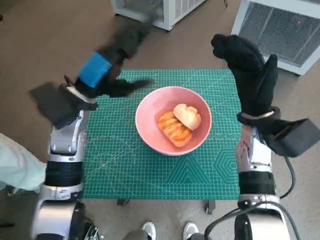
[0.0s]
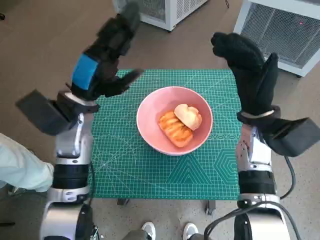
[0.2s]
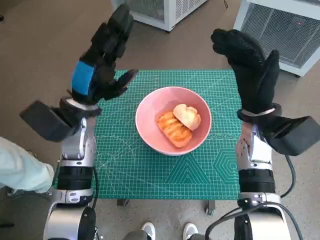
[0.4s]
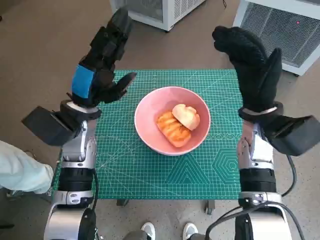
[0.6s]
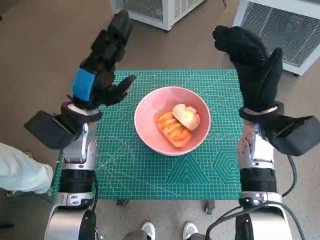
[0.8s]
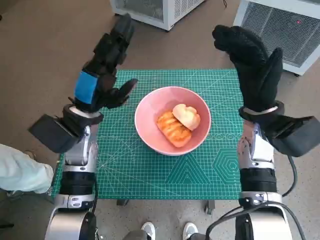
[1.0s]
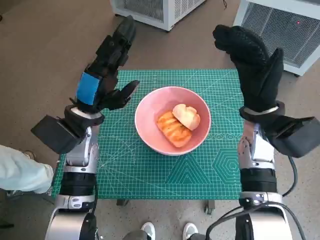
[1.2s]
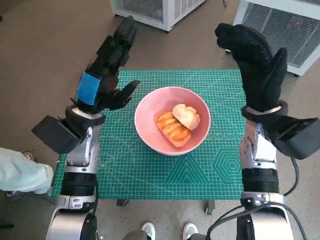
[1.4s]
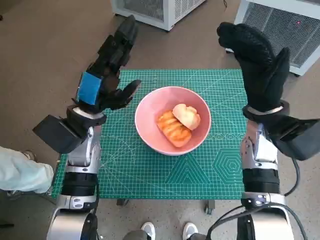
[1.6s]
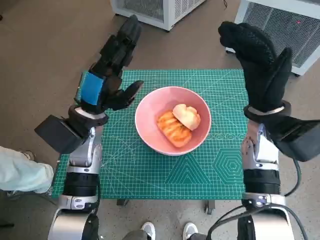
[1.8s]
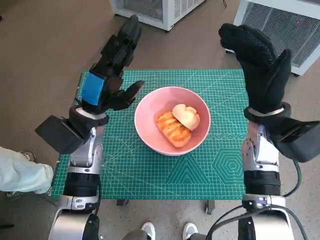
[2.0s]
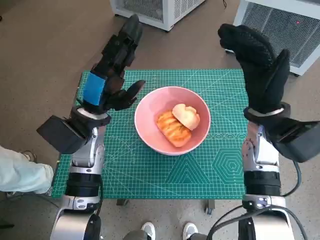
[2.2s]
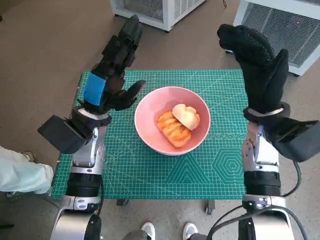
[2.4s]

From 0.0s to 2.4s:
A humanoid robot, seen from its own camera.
Task of the whole recording: Push the bowl into the center of the table and put the bread into the bowl.
From 1.2s to 2.4s: Neither hand changes place.

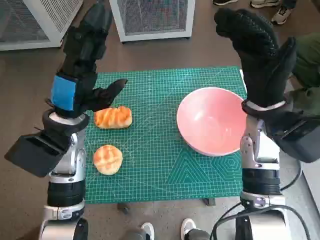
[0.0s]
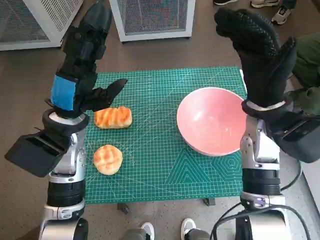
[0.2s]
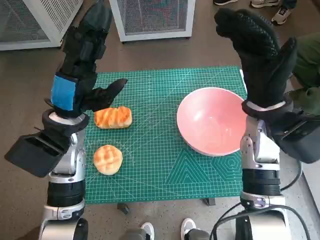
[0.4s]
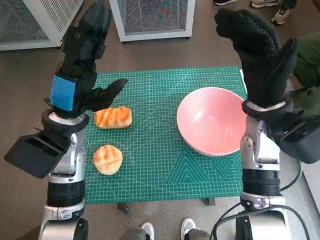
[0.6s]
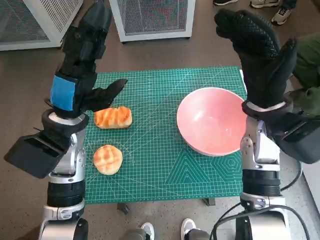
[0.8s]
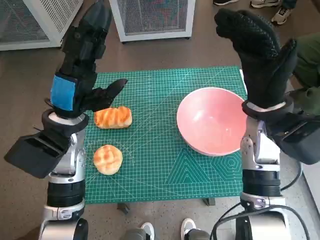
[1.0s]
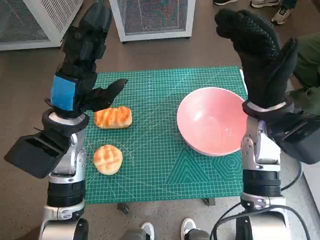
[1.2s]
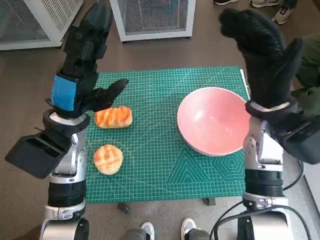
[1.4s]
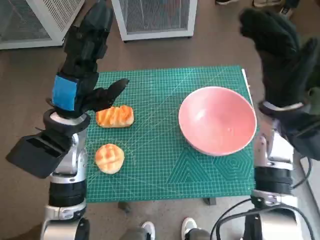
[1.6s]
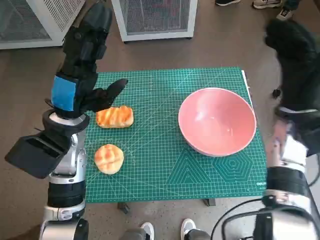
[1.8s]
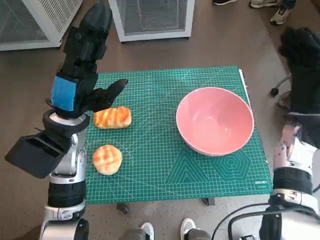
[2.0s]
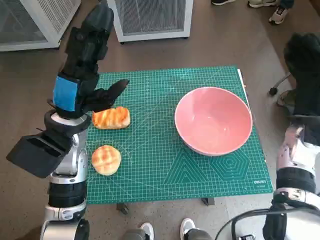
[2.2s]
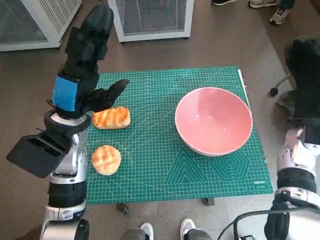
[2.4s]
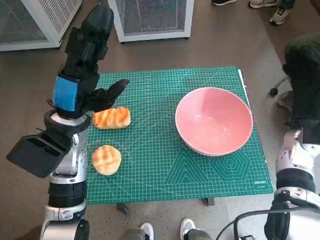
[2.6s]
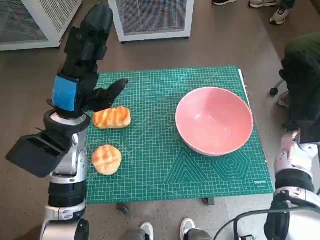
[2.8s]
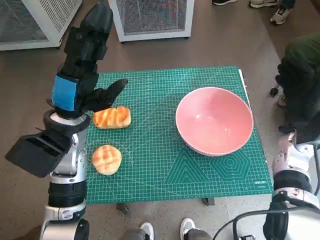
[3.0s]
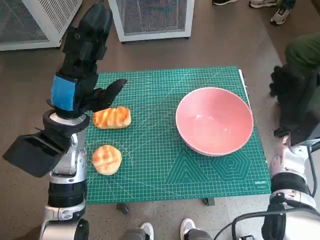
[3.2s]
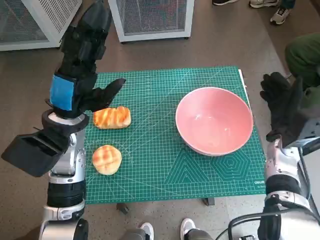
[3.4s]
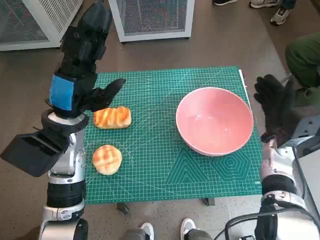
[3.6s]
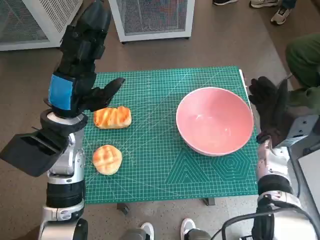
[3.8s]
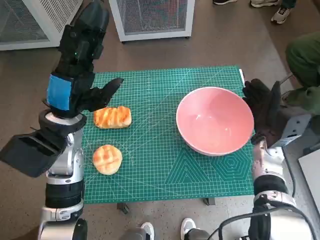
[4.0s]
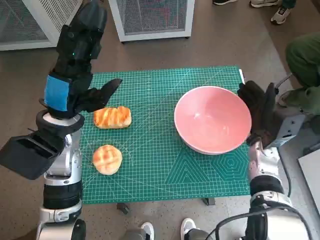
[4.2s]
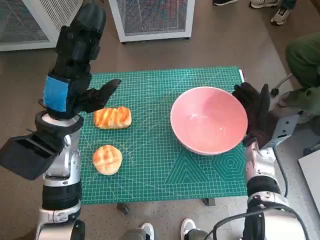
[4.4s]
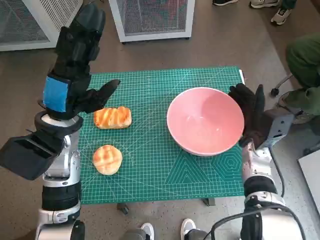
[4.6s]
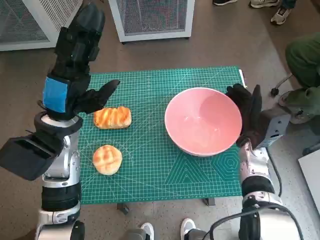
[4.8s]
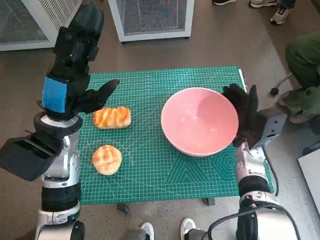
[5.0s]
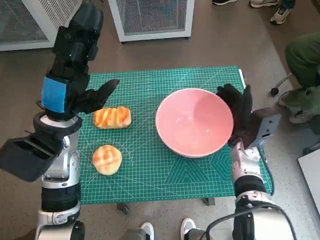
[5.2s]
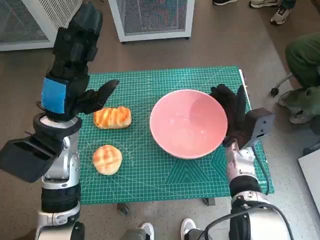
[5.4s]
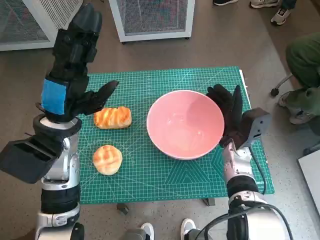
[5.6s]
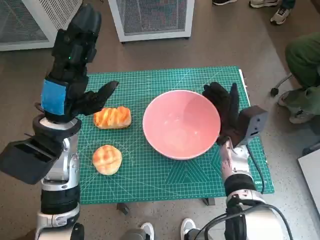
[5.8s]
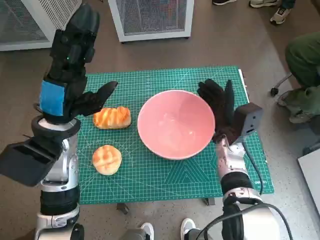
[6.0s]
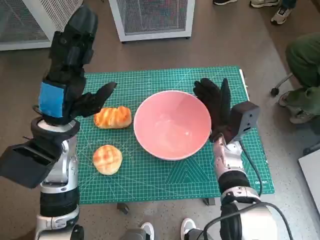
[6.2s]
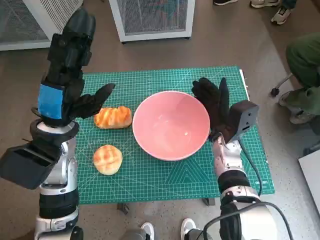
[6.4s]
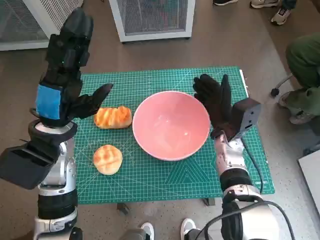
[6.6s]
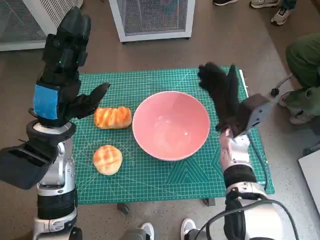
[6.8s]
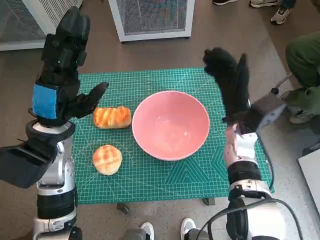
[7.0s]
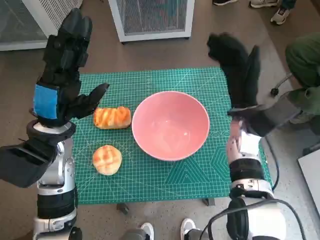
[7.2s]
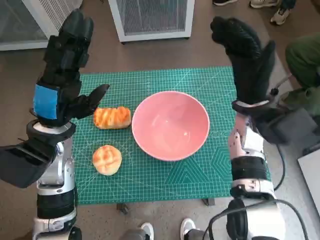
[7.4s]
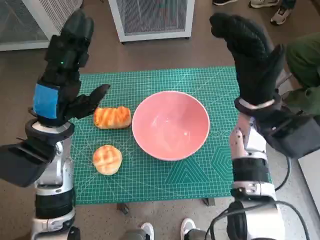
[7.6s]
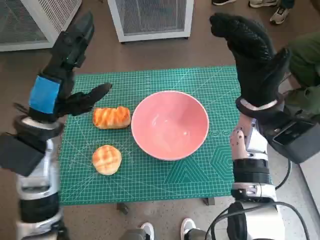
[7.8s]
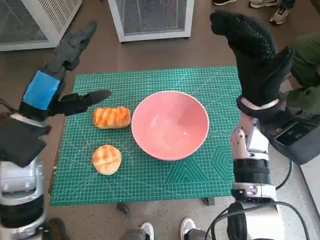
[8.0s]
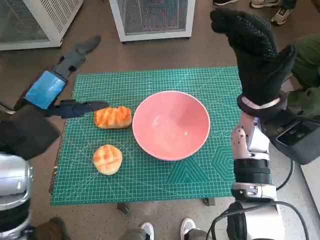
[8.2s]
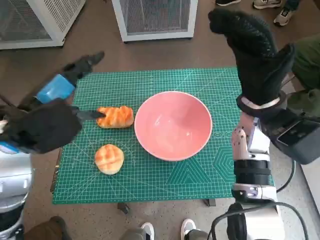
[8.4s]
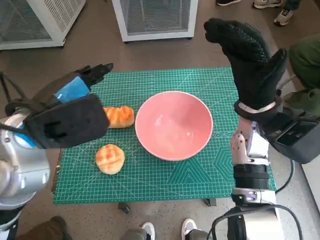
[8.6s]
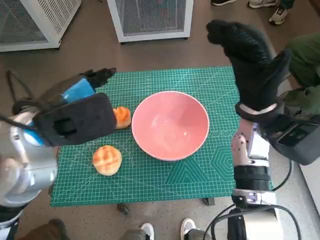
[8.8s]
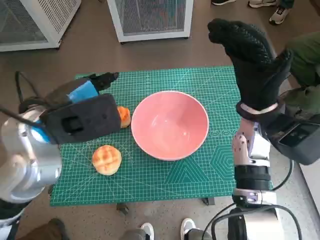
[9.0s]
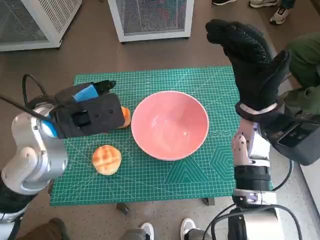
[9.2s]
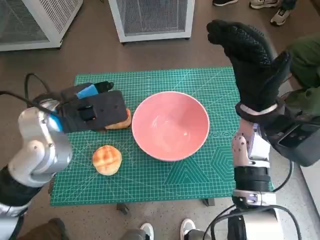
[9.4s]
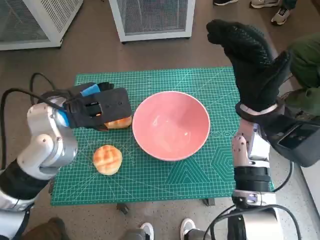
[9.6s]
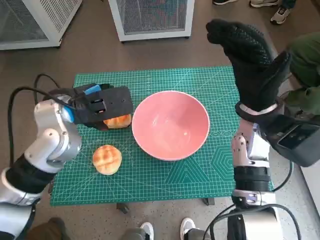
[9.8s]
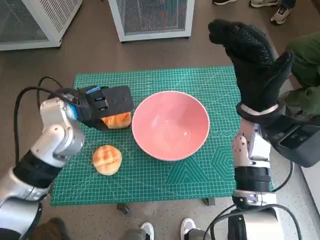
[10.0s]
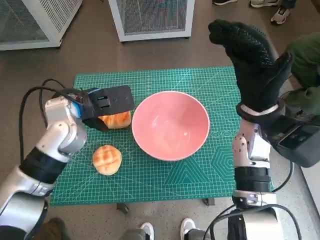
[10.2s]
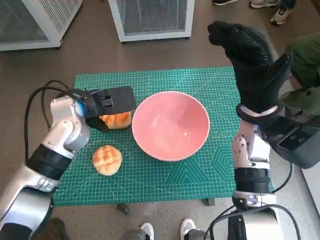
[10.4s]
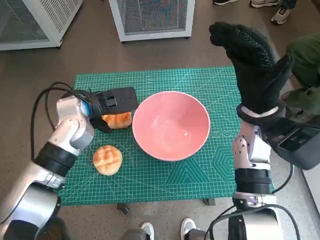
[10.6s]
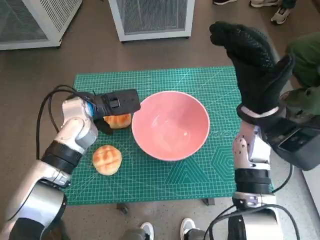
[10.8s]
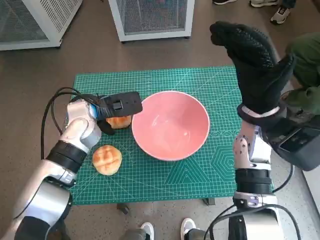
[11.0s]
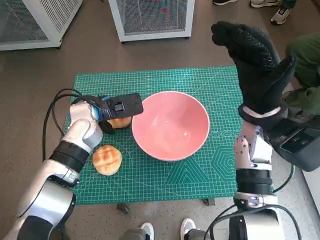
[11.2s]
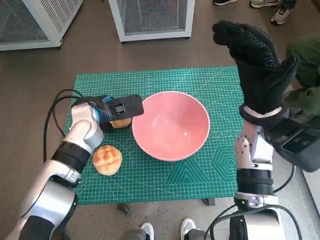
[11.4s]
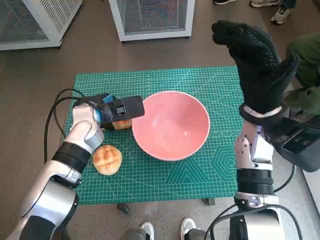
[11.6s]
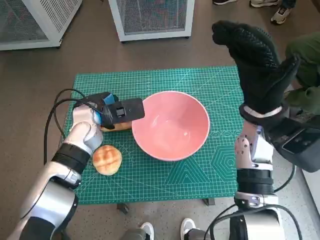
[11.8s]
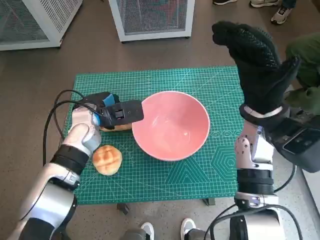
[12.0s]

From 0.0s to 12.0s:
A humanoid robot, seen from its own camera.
Task of the whole recording: Push the bowl into the center of the table and put the bread into the bowl.
Step, from 0.0s to 6.6s: Move the pink bowl to the center of table with right hand.
Step, from 7.0s to 11.8s: Grasp the long bread with left hand.
From 1.6s to 3.0s: The right hand shifts roughly 10 cm downward and to the right.
From 3.0s to 4.4s: The right hand moves to the left, some 5 cm.
From 4.4s to 6.0s: The right hand heads to the left, covering about 5 cm.
From 6.0s to 7.6s: The right hand goes about 10 cm upward.
From 7.6s to 9.0s: The left hand is displaced upward by approximately 5 cm.
From 9.0s to 10.4s: The left hand is displaced forward and downward by approximately 10 cm.
From 10.4s to 12.0s: The left hand shifts roughly 5 cm downward.

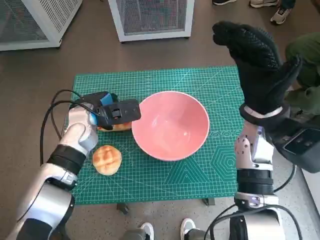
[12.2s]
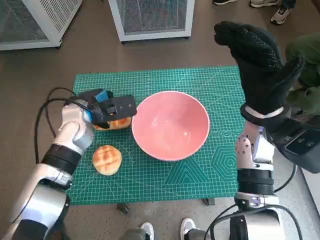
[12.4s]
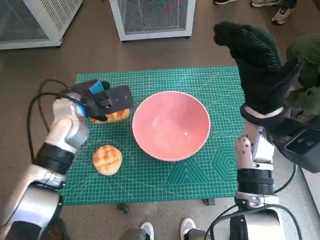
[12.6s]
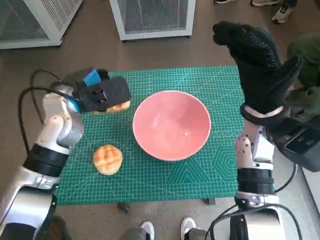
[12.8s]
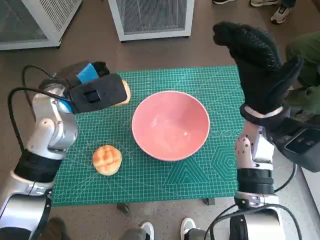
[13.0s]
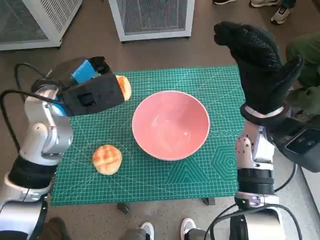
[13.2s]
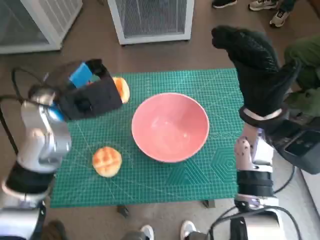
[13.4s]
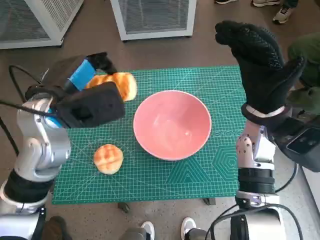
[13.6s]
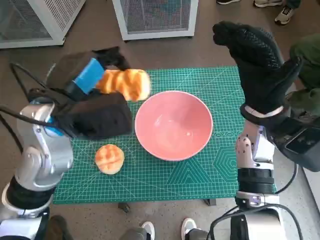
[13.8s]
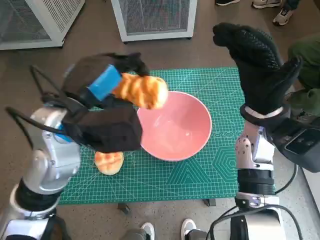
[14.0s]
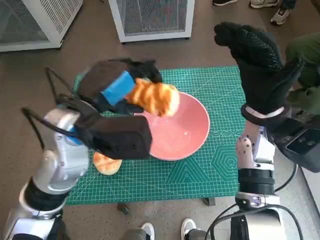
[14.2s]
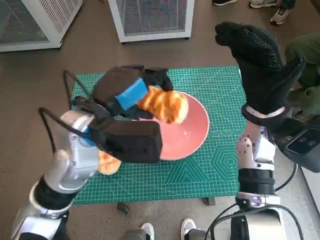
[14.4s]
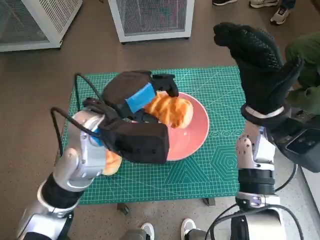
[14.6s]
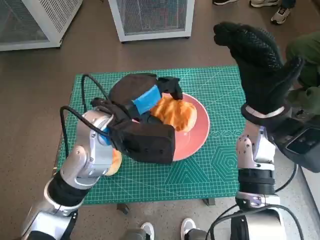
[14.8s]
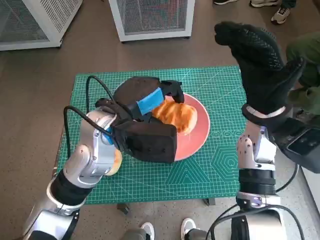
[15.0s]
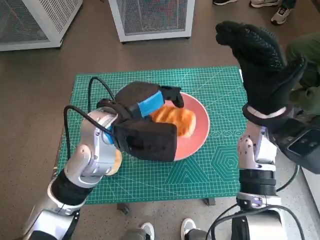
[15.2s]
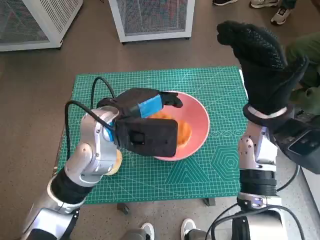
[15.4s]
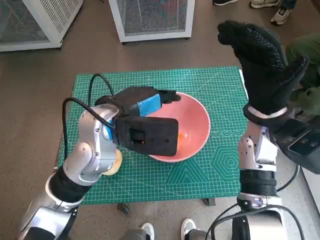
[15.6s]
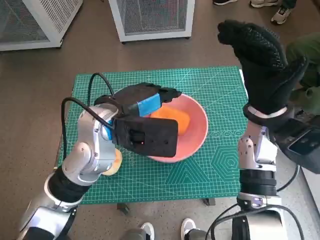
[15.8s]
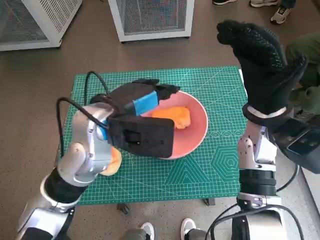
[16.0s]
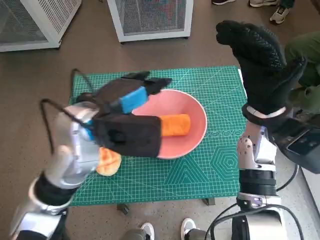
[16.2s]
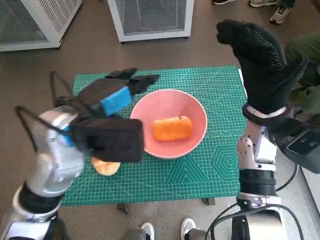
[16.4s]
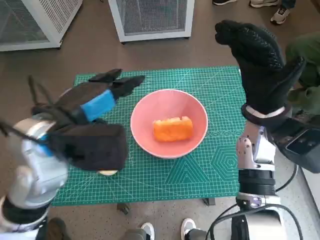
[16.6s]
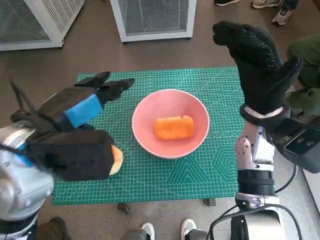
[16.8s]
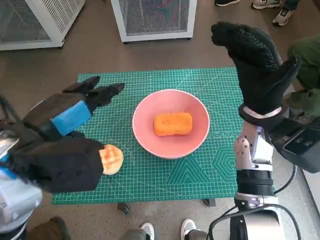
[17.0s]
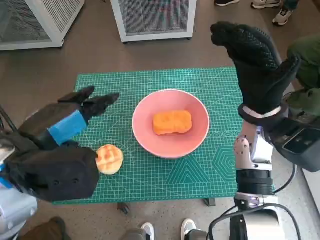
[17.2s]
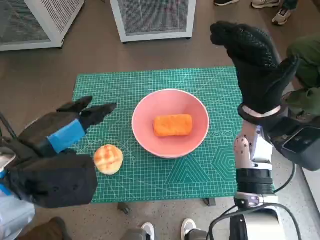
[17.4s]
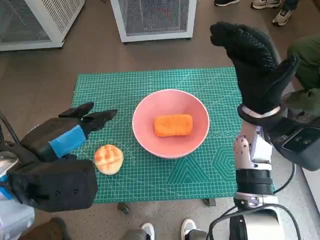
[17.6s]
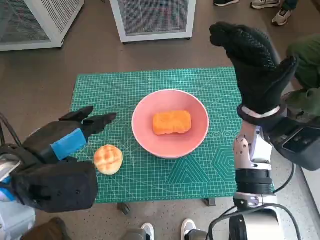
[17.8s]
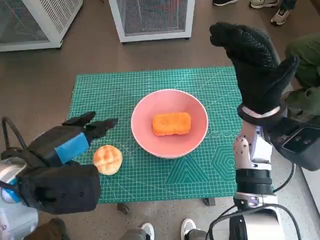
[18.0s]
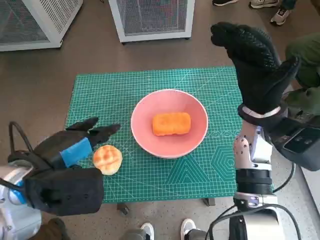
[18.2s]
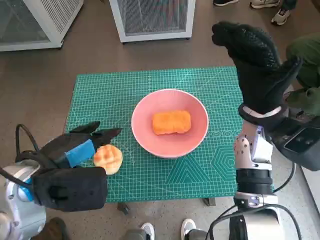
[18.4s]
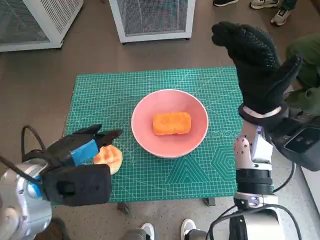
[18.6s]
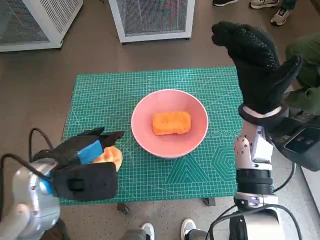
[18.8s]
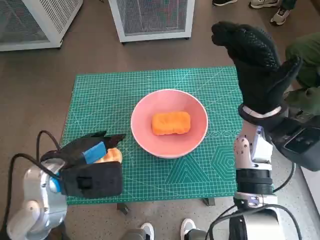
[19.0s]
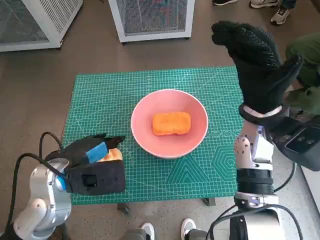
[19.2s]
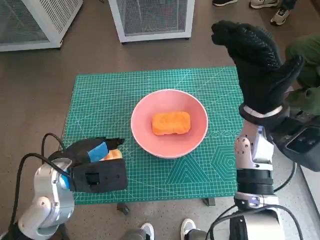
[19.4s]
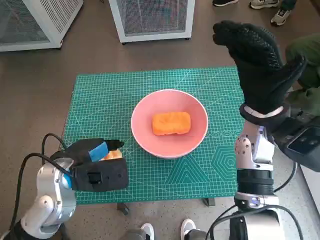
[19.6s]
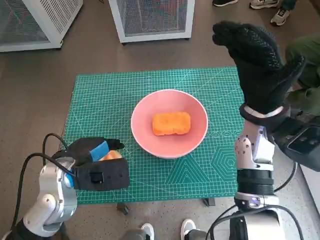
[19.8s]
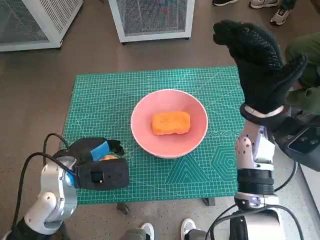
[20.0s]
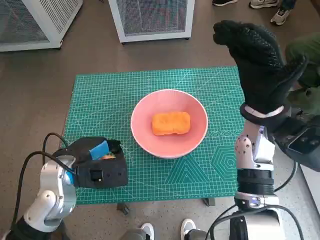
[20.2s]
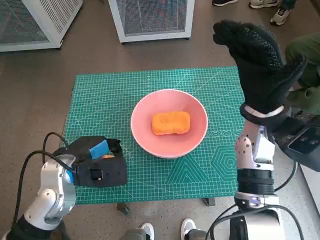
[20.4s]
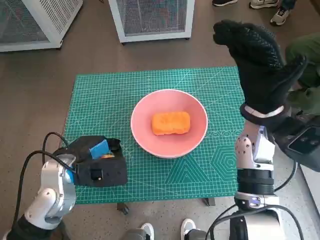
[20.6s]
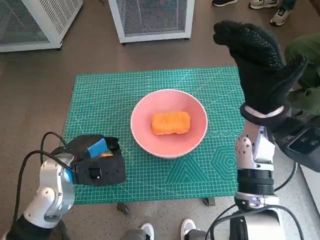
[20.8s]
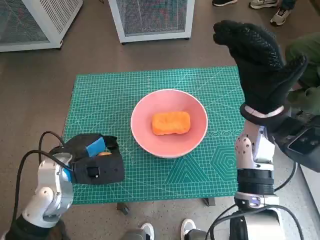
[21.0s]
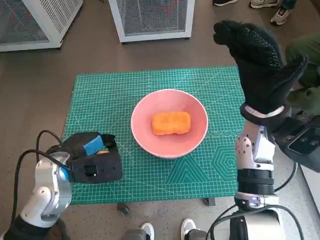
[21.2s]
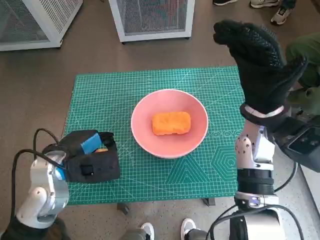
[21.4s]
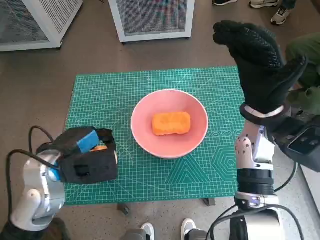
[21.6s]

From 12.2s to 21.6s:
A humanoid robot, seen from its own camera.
Task of the whole recording: Push the bowl into the center of the table and put the bread into the bowl.
Step, from 12.2s to 15.6s: Place the long bread in pink bowl with left hand.
Step, from 15.8s to 20.6s: Grasp the round bread with left hand.
From 12.2s to 13.8s: The left hand heads upward and backward, covering roughly 15 cm.
From 13.8s to 15.4s: The left hand moves to the right, some 5 cm.
From 15.4s to 17.0s: The left hand shifts about 10 cm to the left, backward and upward.
From 17.0s to 18.4s: The left hand shifts some 5 cm downward.
From 18.4s to 20.0s: The left hand is displaced downward by approximately 10 cm.
From 20.0s to 21.6s: The hands stay close to where they were, moving slightly.
